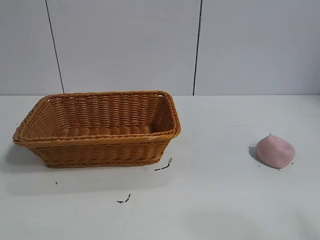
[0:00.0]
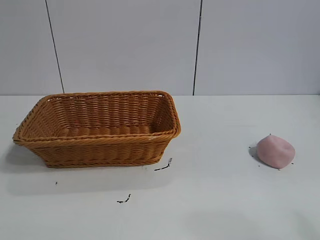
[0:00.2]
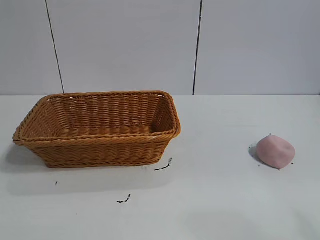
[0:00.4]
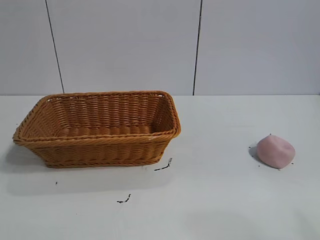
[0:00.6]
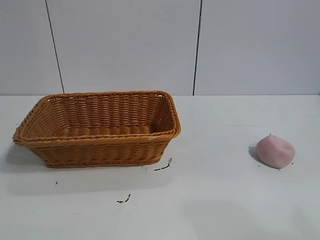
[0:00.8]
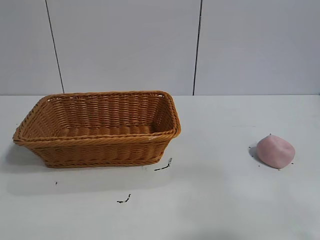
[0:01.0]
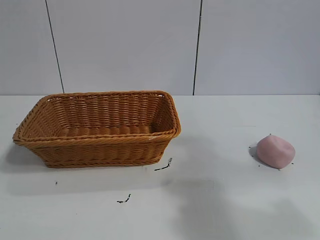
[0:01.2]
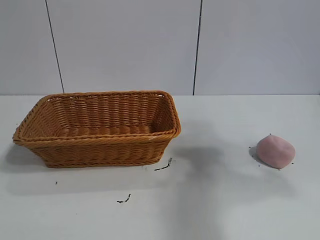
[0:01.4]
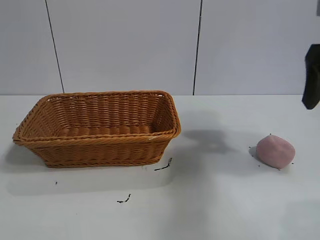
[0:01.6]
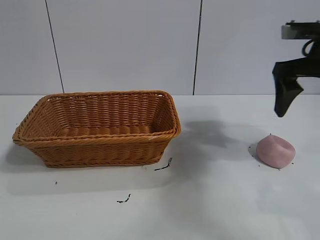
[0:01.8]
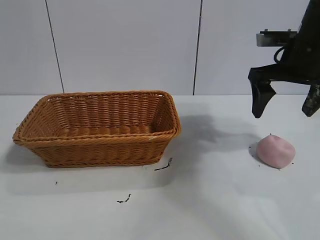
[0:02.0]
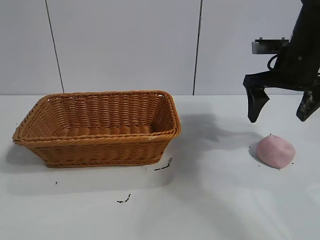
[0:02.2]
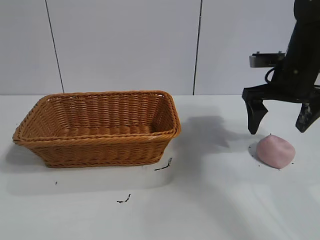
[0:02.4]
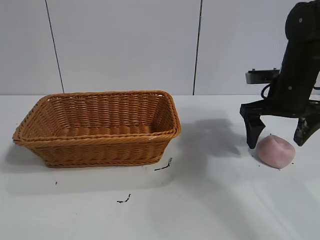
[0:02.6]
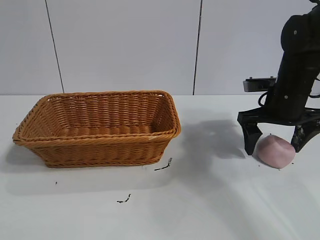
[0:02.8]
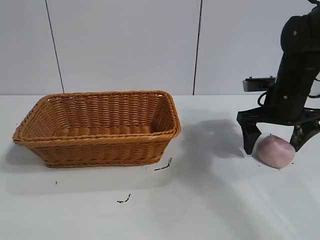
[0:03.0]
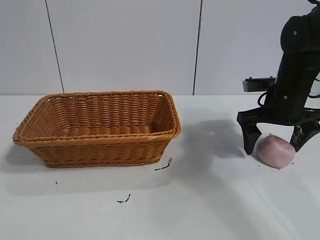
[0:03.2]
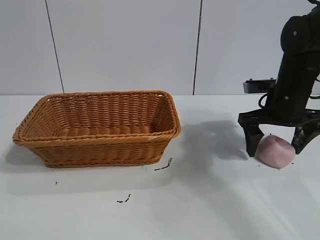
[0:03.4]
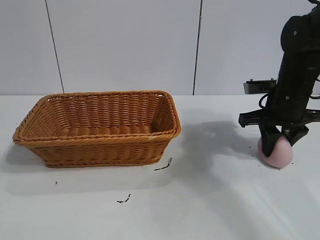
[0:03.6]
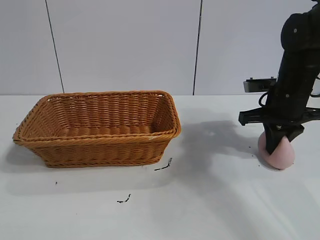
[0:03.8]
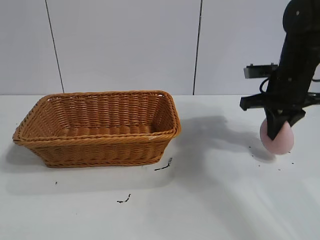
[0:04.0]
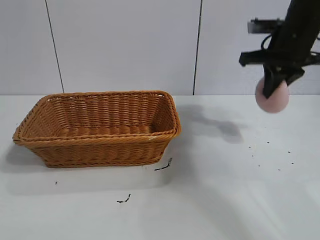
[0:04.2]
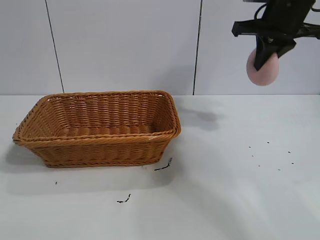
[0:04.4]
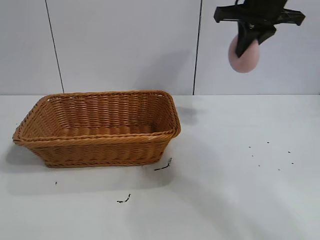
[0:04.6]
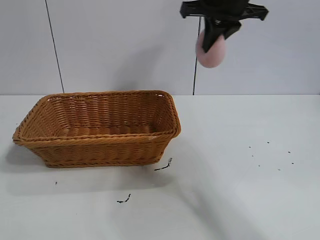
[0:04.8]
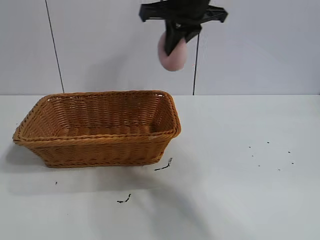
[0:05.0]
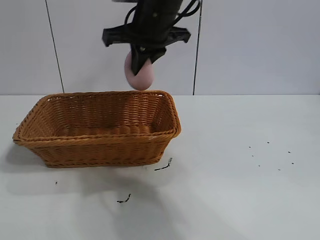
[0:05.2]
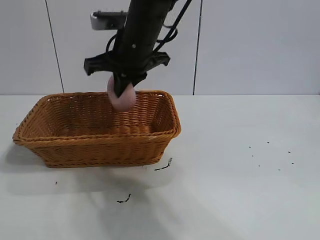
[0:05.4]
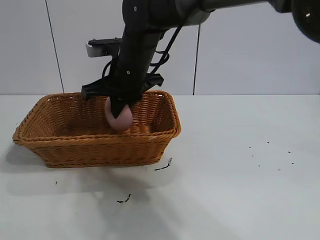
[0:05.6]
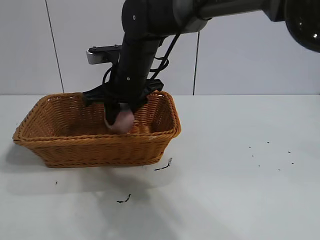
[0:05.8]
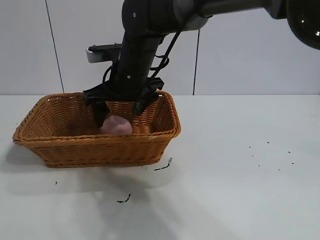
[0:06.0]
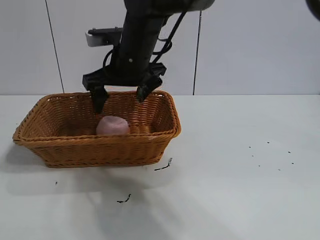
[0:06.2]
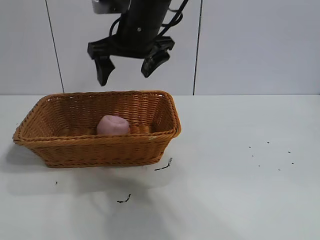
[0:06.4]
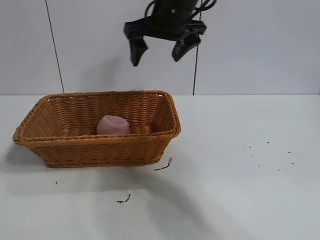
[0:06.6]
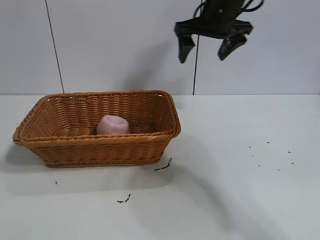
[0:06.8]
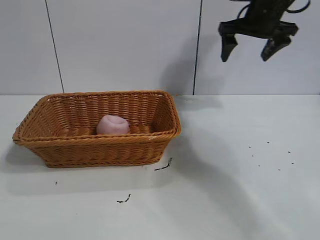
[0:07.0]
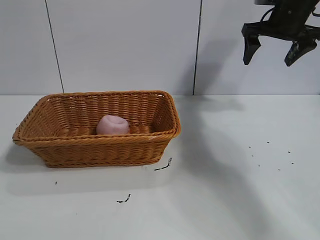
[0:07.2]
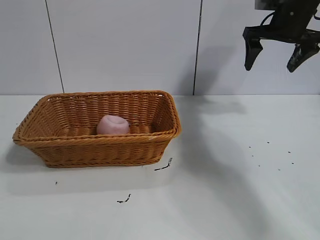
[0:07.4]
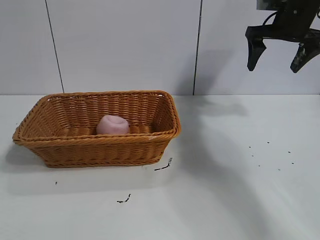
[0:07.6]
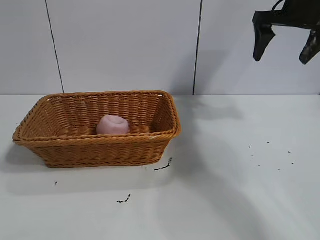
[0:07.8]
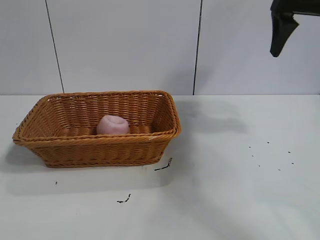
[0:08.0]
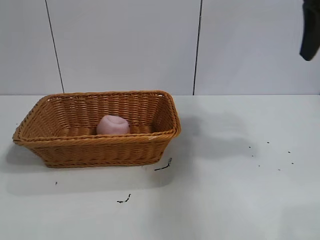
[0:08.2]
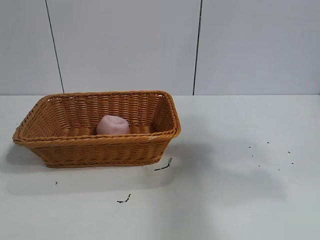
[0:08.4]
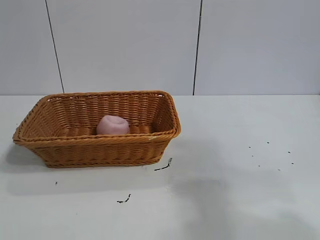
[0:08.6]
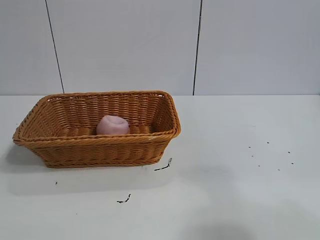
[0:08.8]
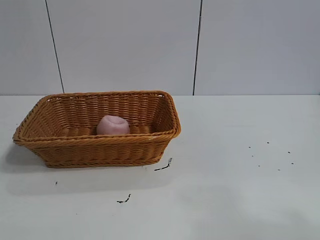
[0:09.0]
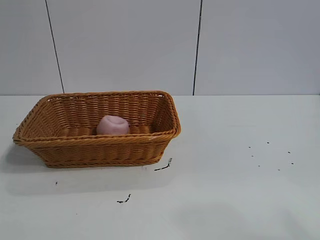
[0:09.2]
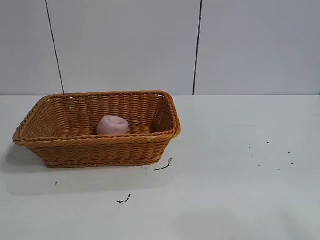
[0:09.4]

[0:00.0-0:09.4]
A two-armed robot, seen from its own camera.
Task of the whole recording: pick up the peach and put it into the basket.
Step, 0:00.8 to 0:03.6: Grasp the peach with right gripper.
Step, 0:04.0 to 0:06.0: Place the peach in the basket with right gripper.

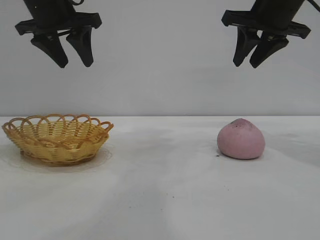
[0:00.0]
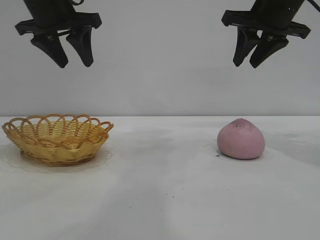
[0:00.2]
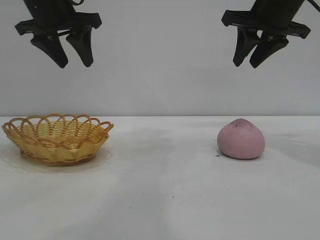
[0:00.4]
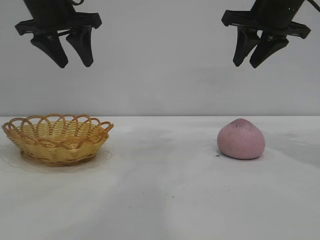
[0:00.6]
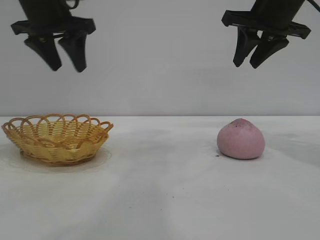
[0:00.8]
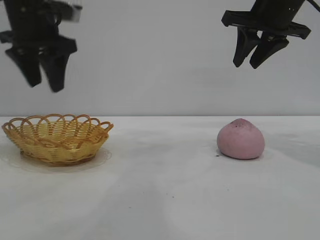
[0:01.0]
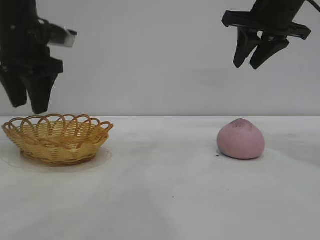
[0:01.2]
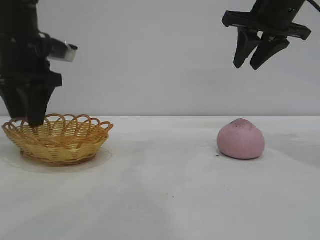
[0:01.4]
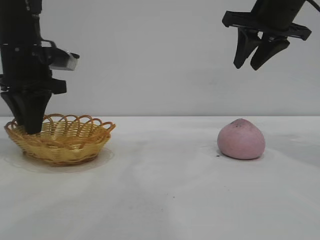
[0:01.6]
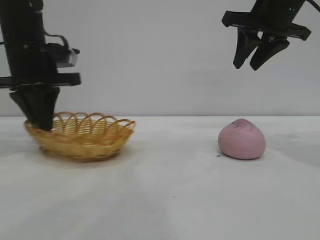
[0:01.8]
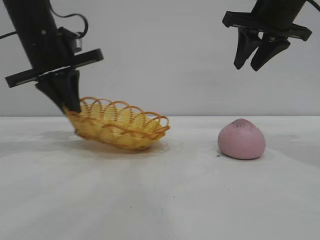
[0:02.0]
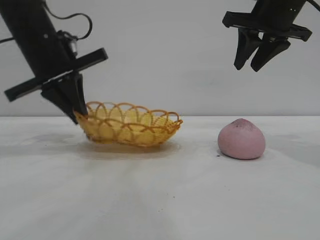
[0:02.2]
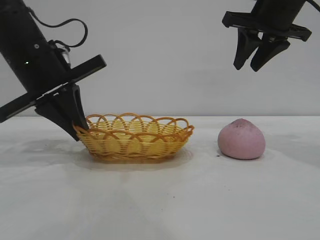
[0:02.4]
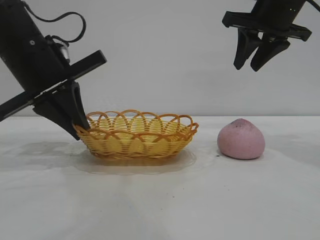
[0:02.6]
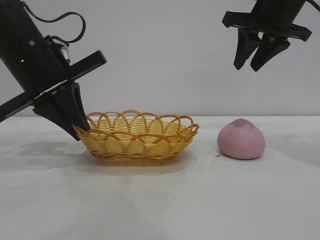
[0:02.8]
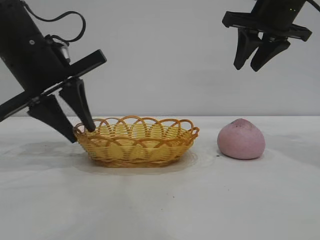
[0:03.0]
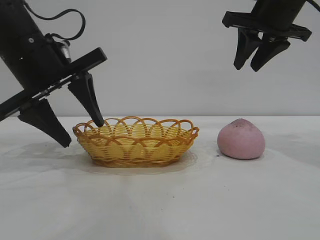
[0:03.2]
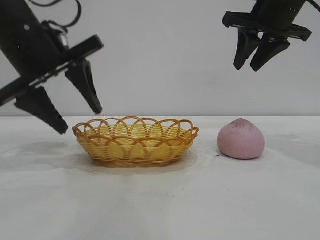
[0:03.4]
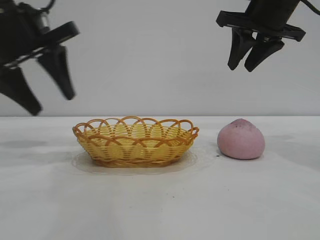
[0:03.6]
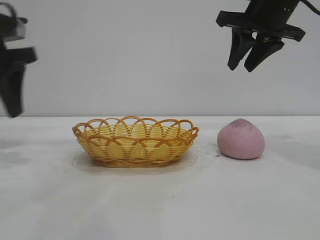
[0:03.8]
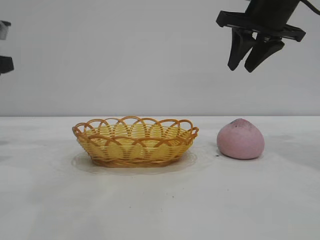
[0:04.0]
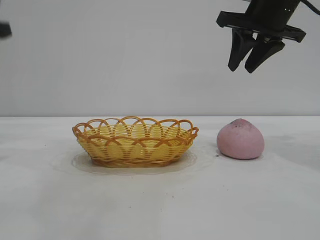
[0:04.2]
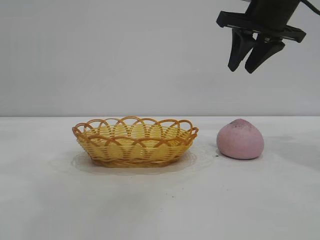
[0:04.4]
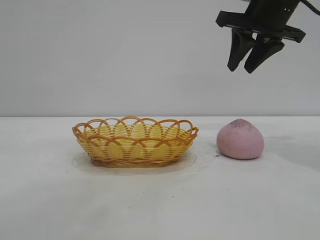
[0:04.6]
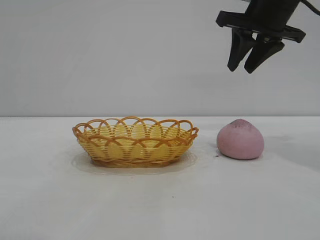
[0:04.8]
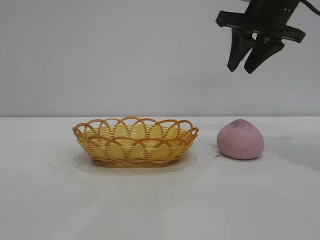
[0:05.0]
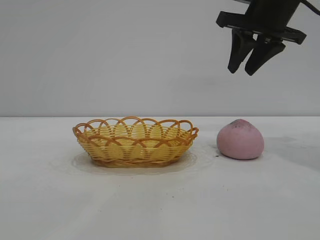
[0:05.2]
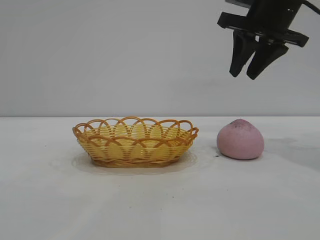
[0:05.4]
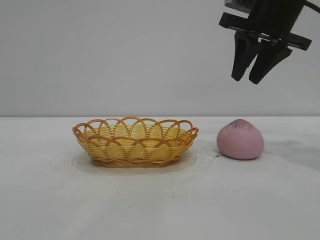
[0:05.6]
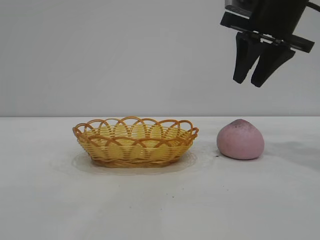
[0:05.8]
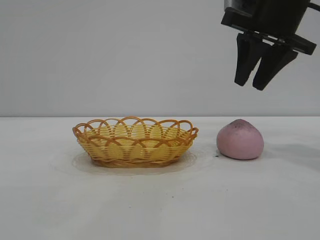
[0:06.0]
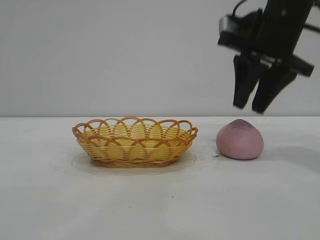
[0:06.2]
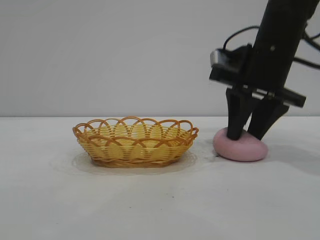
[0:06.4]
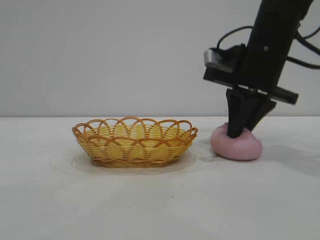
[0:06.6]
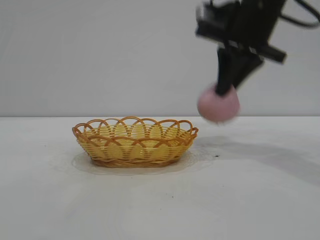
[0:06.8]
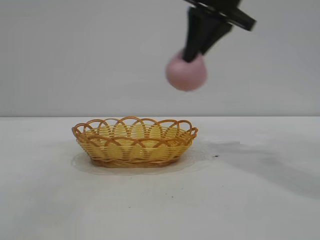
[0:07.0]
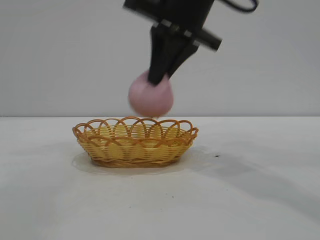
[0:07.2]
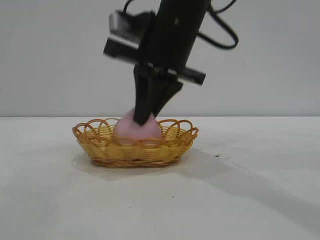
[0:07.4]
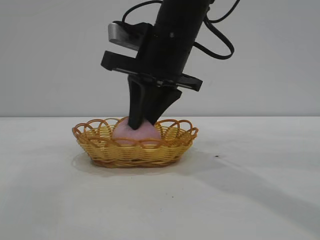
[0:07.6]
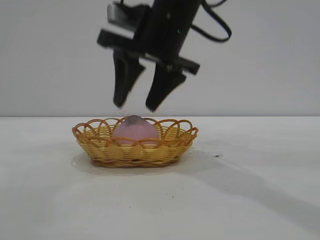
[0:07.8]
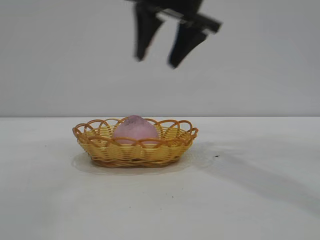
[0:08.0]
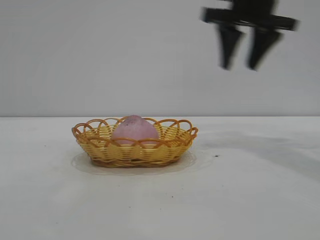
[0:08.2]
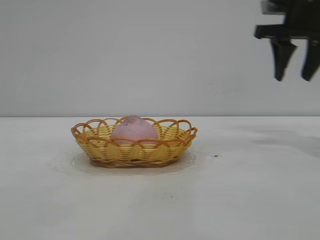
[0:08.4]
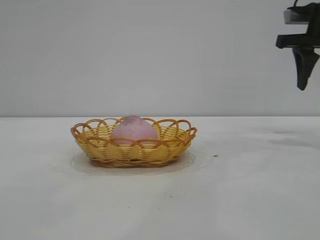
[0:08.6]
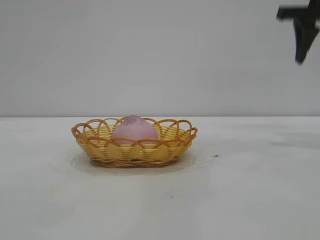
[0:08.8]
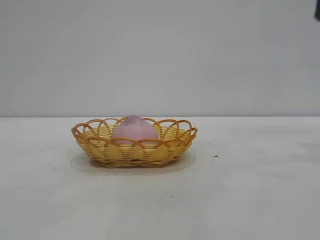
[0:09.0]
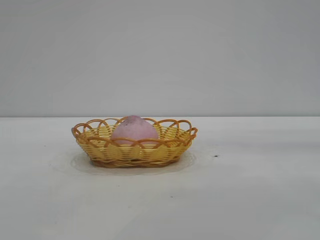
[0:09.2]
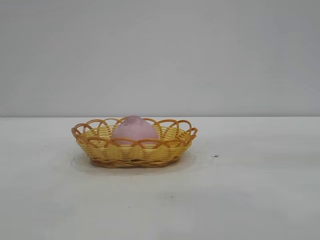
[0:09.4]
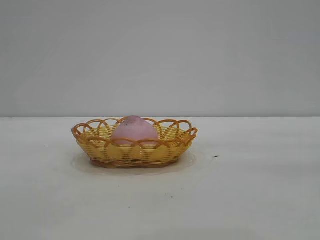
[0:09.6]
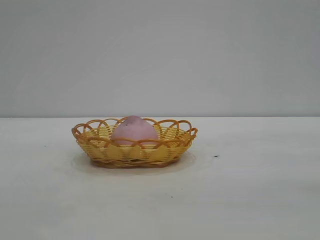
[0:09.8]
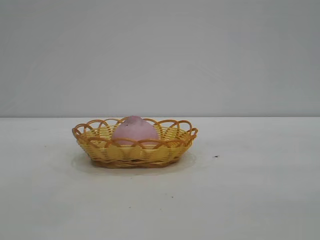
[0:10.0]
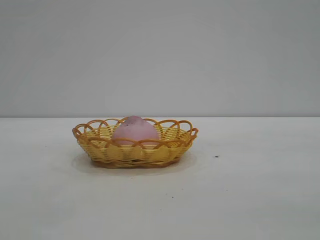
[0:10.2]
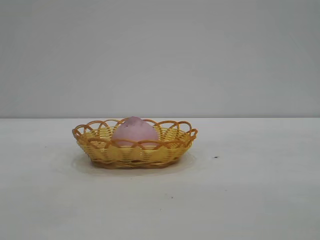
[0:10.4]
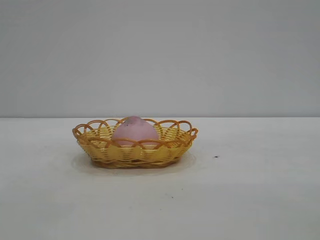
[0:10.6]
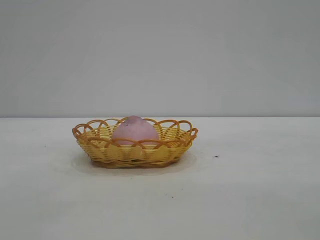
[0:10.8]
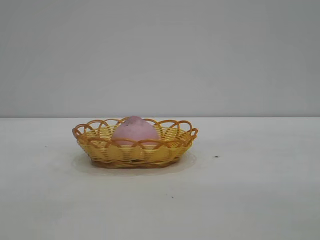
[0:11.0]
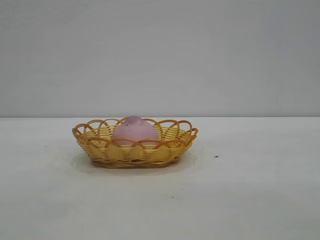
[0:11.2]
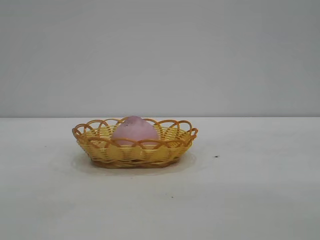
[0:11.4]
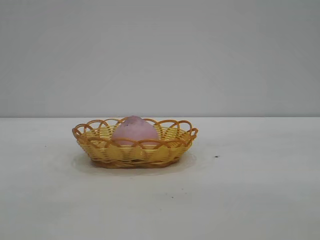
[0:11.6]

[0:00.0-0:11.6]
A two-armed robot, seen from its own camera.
Task of the whole recording: pick up the peach and put it into the basket.
Step, 0:00.0 to 0:03.4: Move the basket to the center of view.
Step, 0:03.6 to 0:06.8: Pick up the peach.
Step, 0:07.0 to 0:07.8: place the peach into the basket.

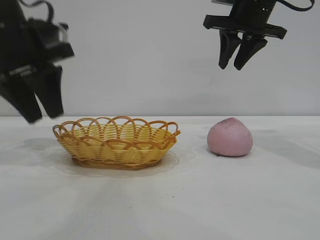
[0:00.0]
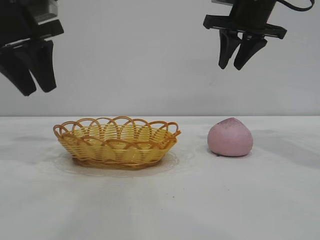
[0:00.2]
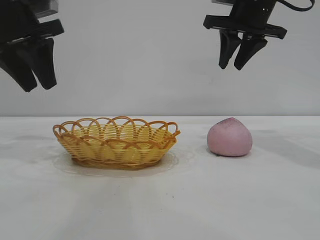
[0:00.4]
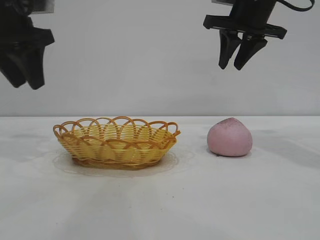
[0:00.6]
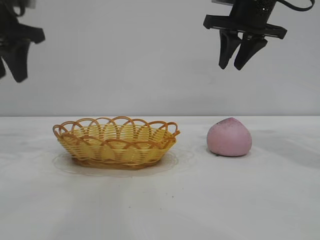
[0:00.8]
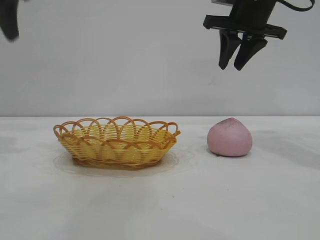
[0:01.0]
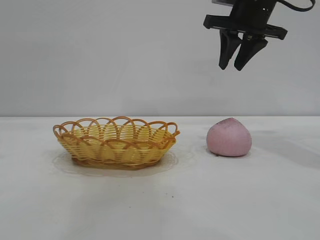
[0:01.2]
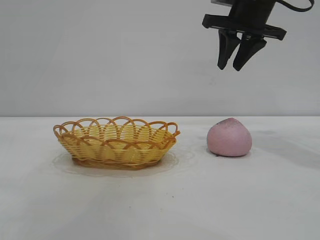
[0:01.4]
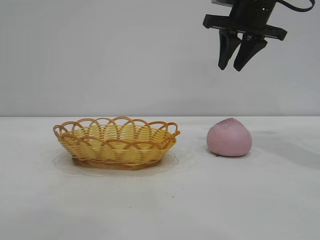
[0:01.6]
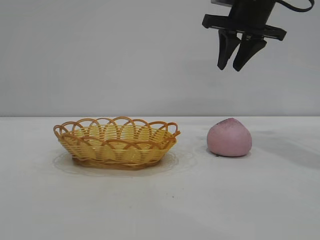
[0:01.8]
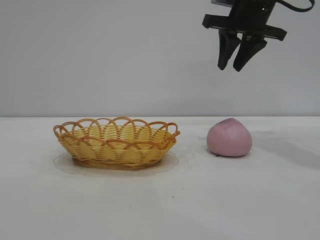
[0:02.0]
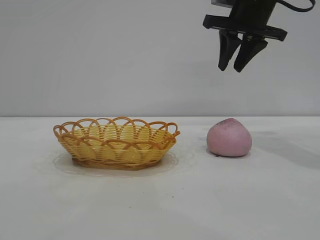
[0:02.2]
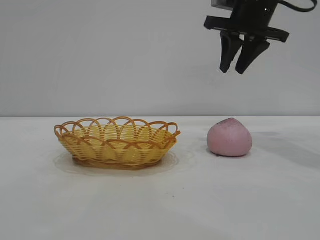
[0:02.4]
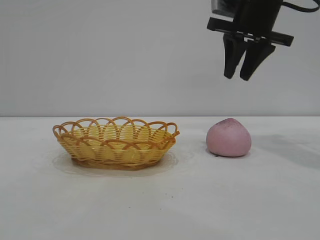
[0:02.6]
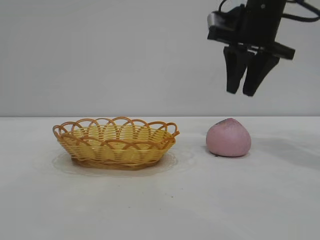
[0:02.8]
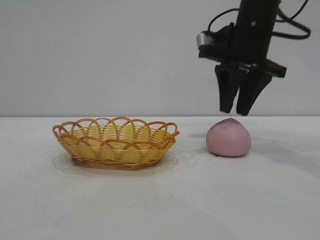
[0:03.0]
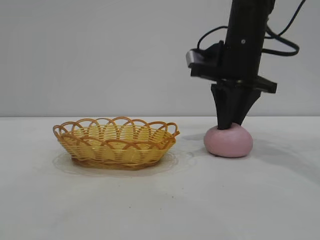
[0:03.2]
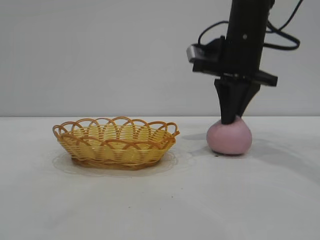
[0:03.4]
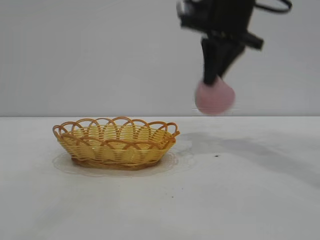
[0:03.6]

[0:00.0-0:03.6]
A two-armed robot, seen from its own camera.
Task of the whole recording: pick up the peach and put it into the basket.
Step, 0:00.6 to 0:03.6: Pick up the peach.
